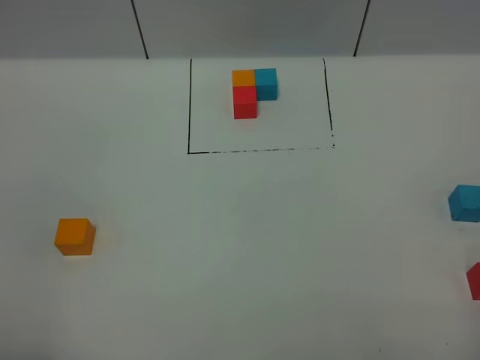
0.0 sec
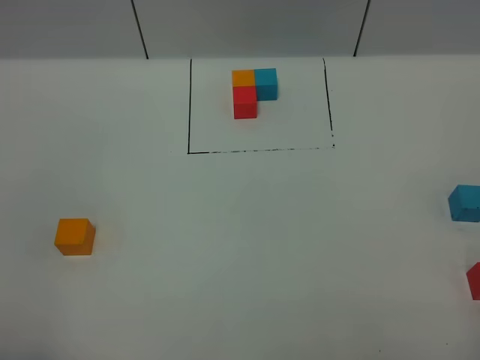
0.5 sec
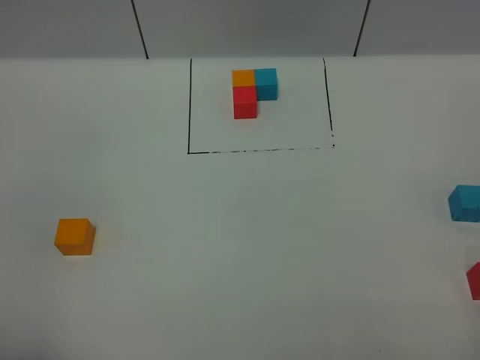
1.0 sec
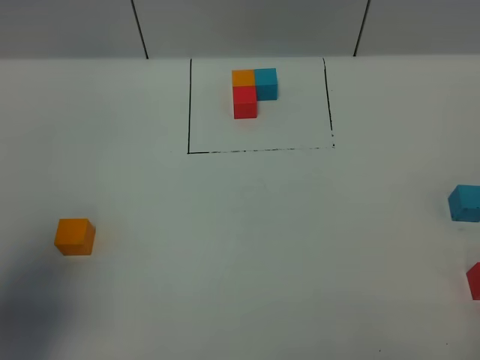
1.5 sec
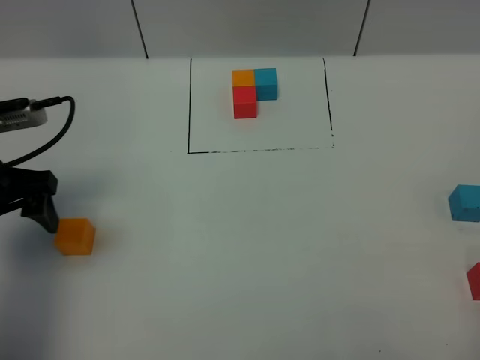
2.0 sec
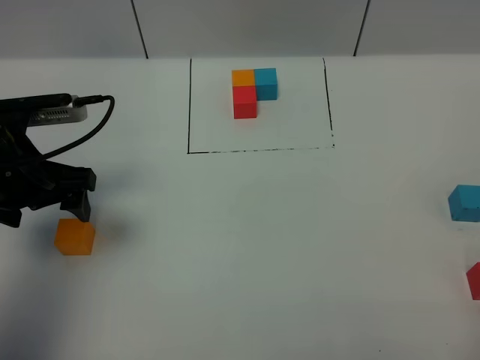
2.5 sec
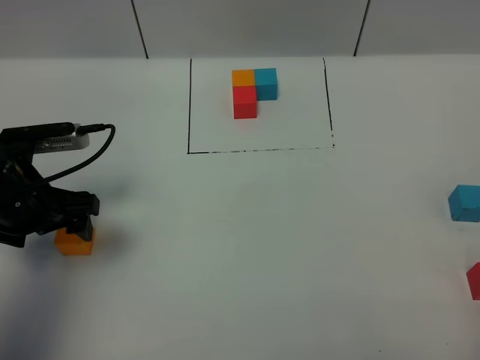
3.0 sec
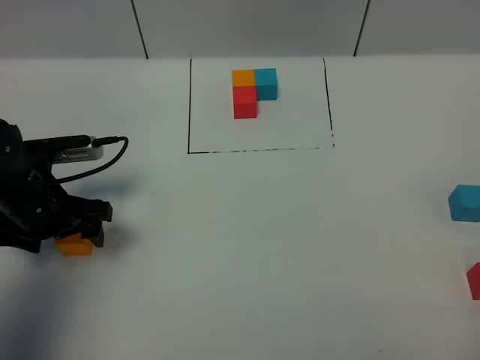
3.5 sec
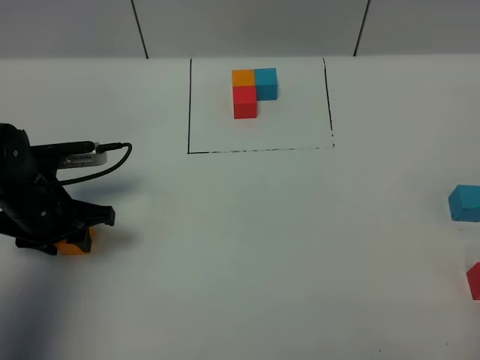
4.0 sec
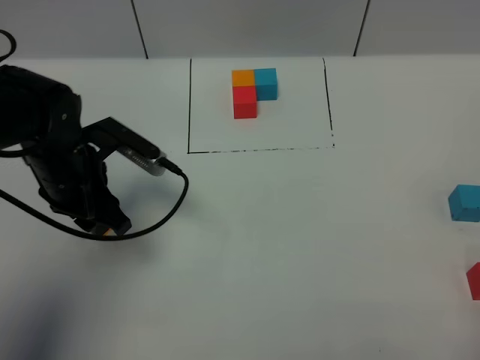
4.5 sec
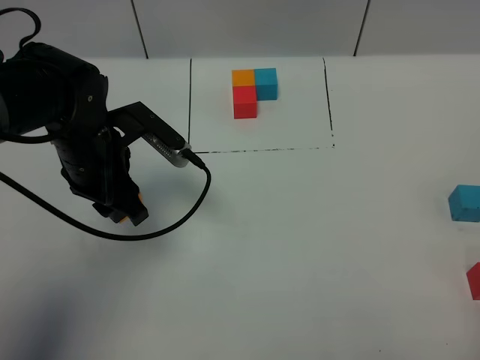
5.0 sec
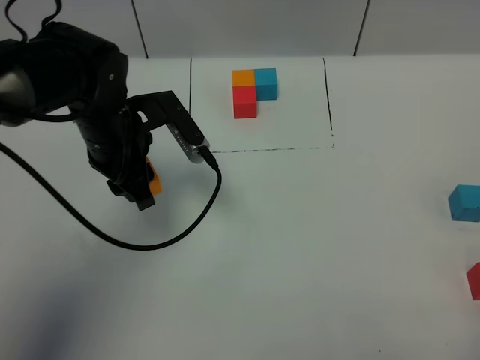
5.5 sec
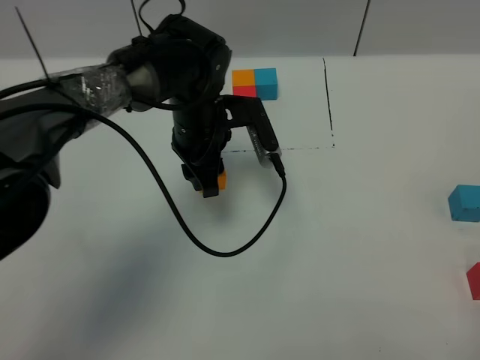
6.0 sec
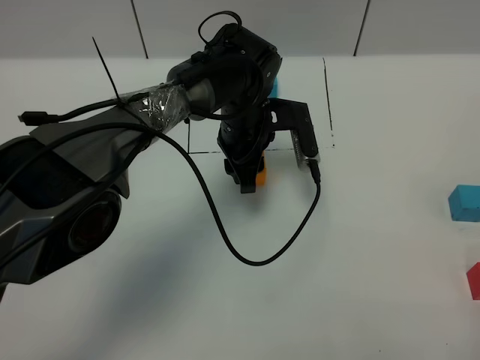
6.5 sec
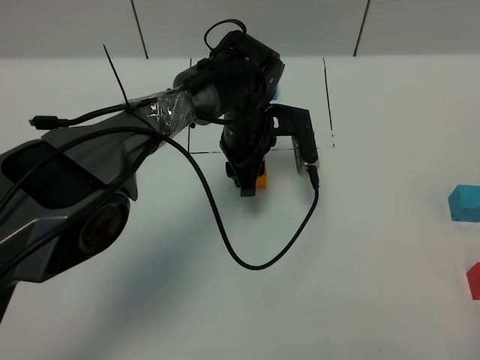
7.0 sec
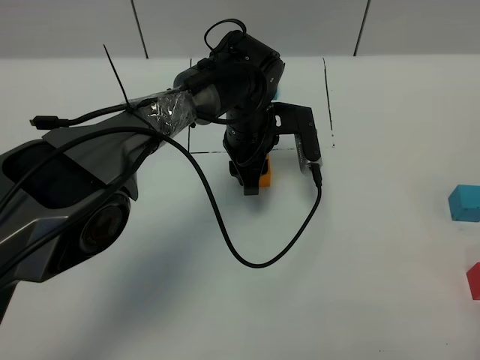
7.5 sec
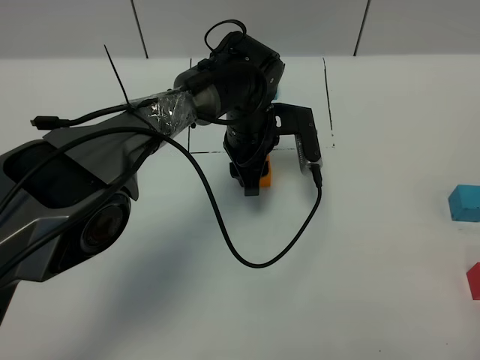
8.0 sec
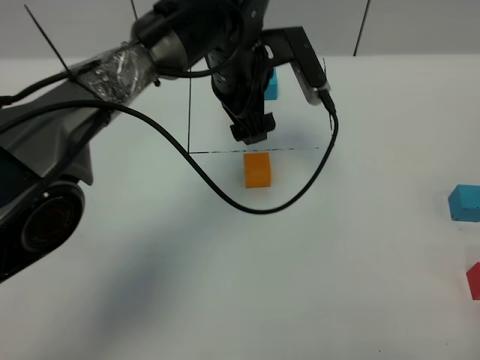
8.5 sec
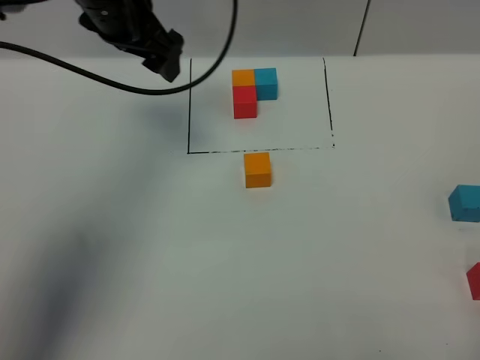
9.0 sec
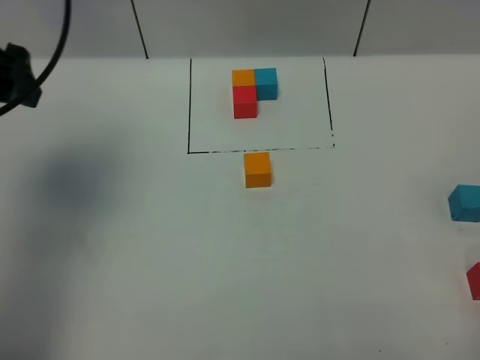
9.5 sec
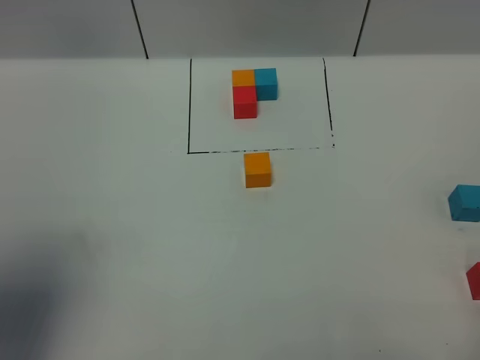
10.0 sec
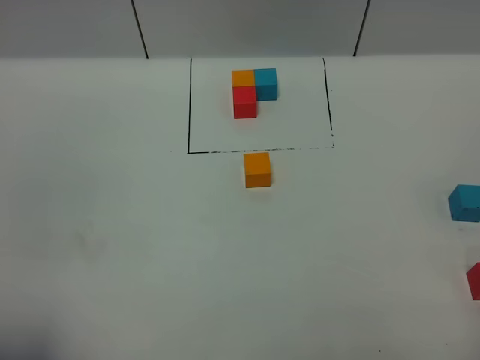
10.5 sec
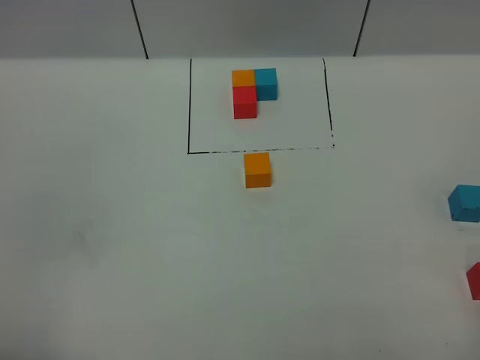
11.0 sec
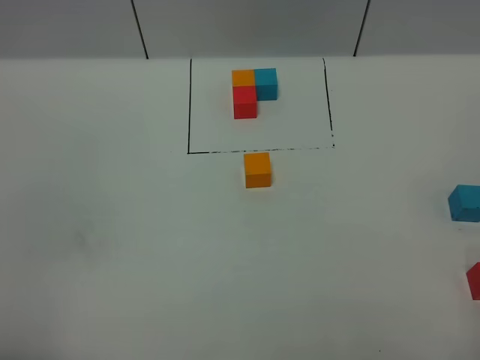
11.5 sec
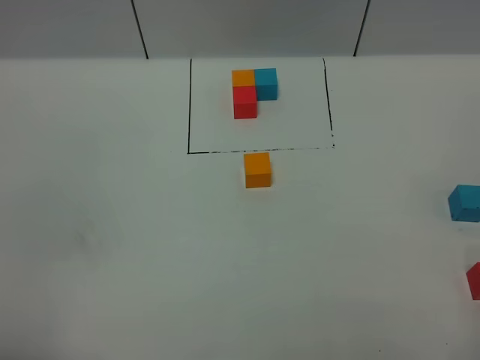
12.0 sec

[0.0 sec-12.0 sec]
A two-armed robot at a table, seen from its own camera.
Task of the whole recording: According to the building block template in front, assemble the scattered blocks together.
Step, 0.0 sec to 7.5 sec: Put the orange build block in the center of the table.
0.0 sec to 2.0 sec: The left gripper shifts some 30 cm forward.
2.0 sec to 4.0 sec: The left gripper goes roughly 10 cm downward, and closes up.
4.0 sec to 6.0 sec: The left gripper is displaced to the right and forward by roughly 25 cm.
6.0 sec to 8.0 sec: The left gripper heads to the right, covering some 5 cm.
8.0 sec to 10.0 sec: The left gripper is displaced to the left, backward and upward by approximately 50 cm, and opens its fingers.
10.0 sec to 12.0 sec: The left gripper goes about 15 cm backward and downward.

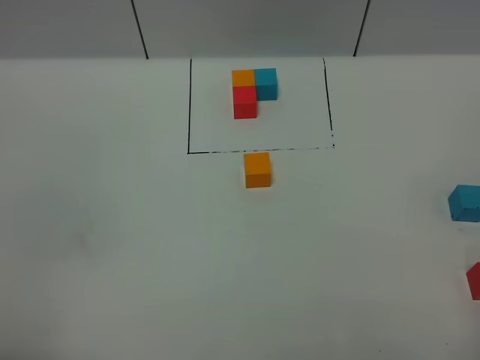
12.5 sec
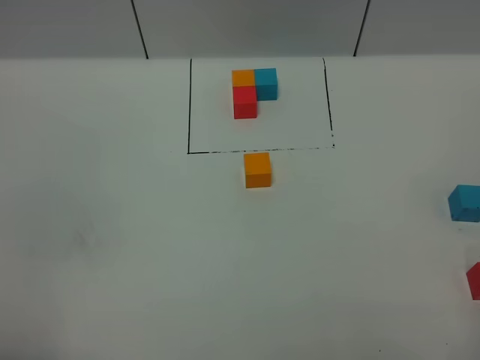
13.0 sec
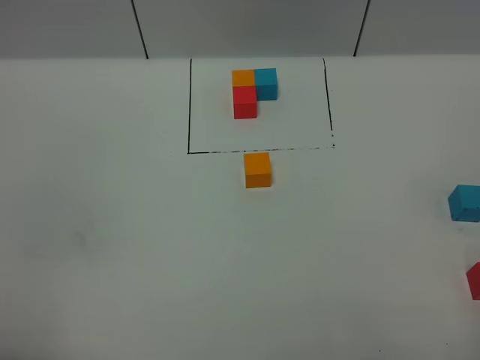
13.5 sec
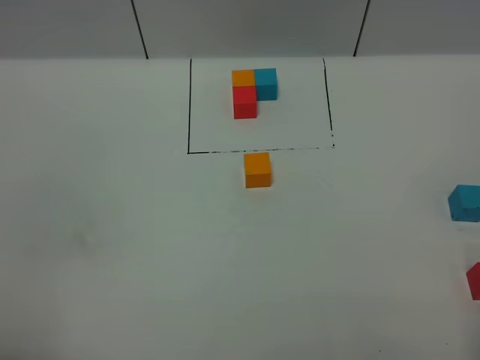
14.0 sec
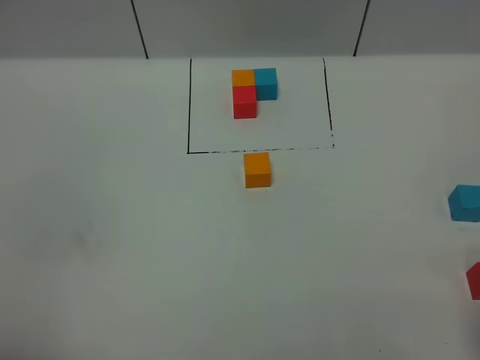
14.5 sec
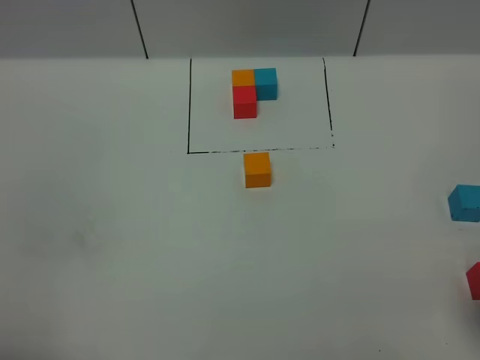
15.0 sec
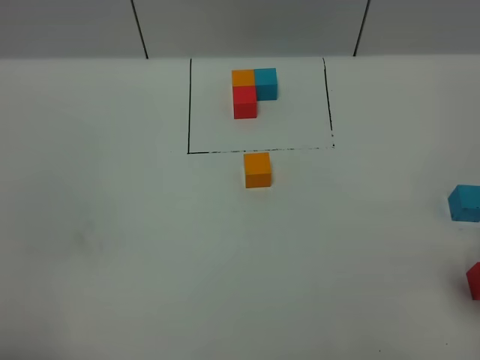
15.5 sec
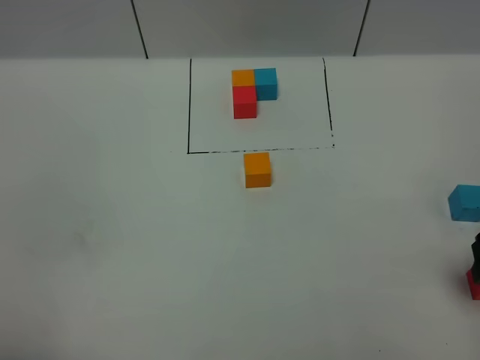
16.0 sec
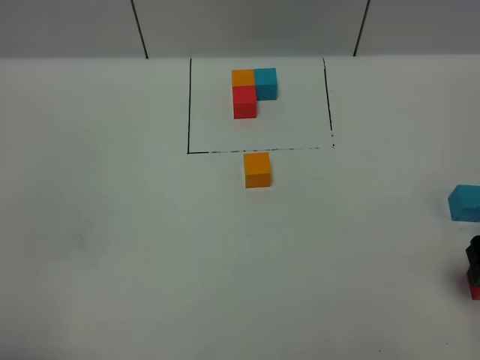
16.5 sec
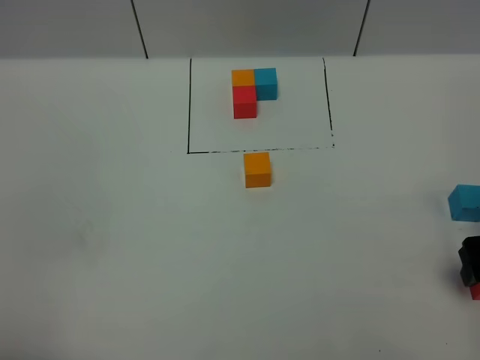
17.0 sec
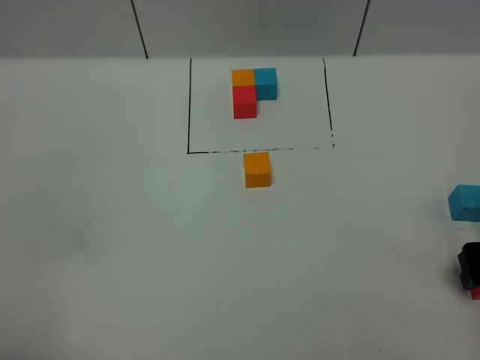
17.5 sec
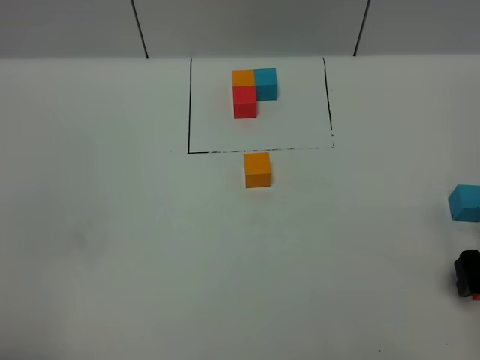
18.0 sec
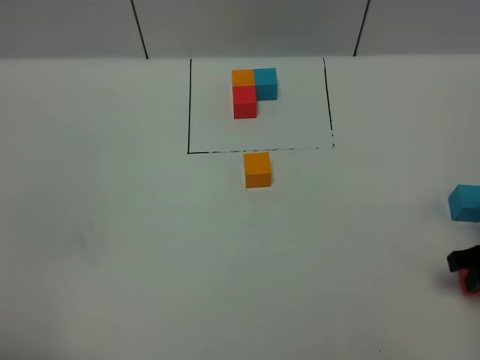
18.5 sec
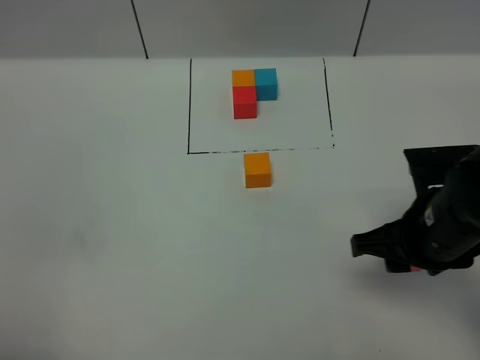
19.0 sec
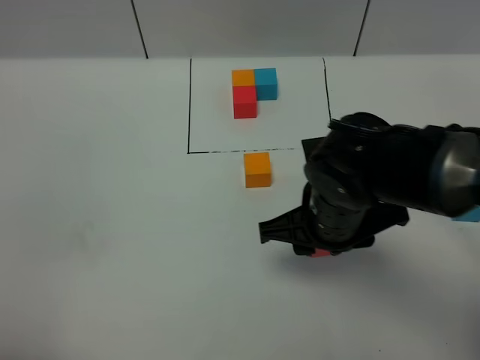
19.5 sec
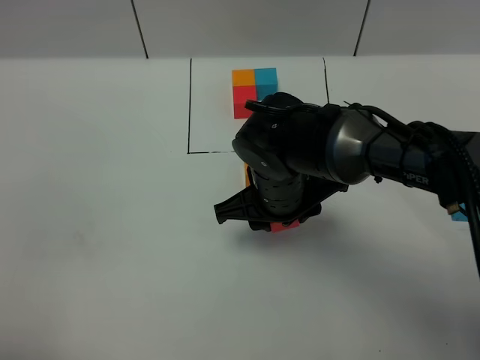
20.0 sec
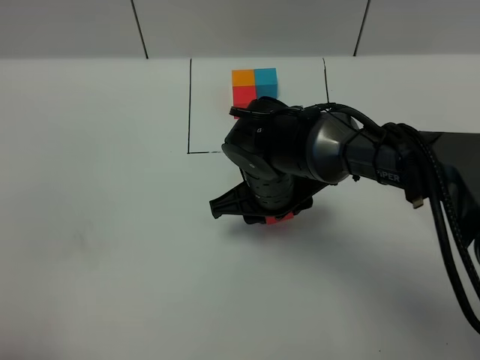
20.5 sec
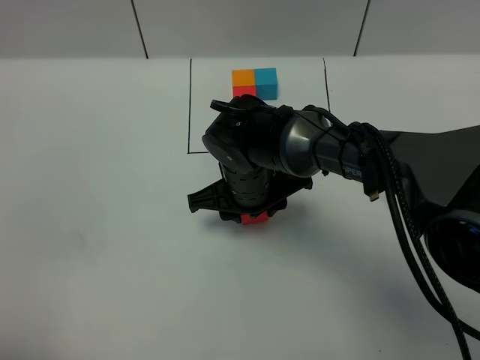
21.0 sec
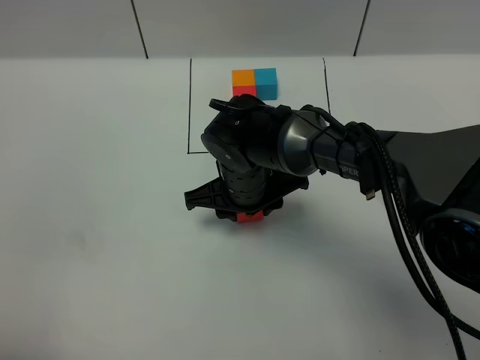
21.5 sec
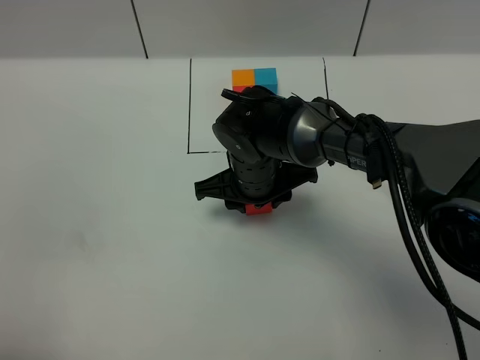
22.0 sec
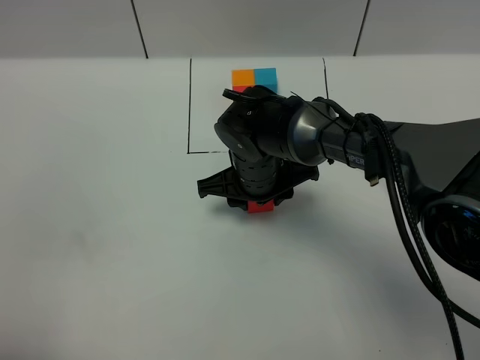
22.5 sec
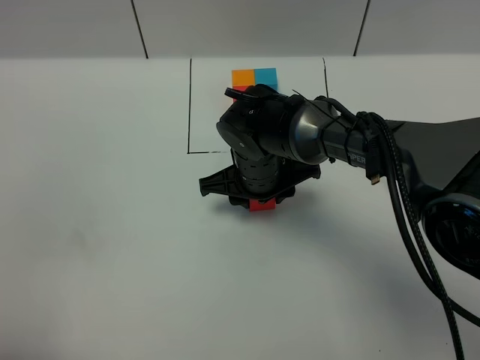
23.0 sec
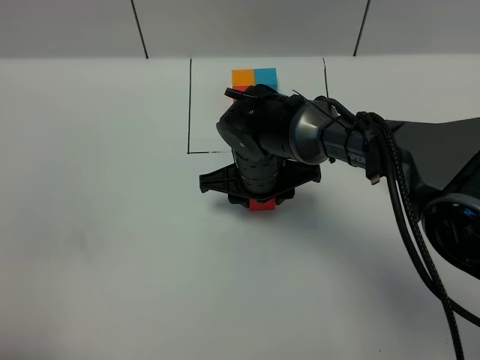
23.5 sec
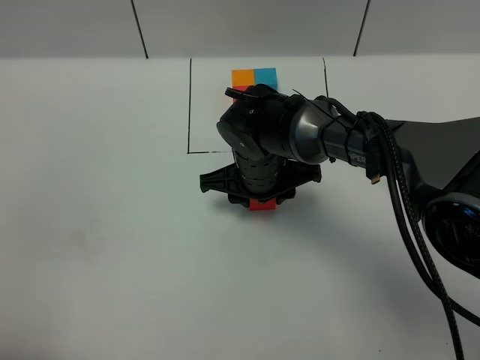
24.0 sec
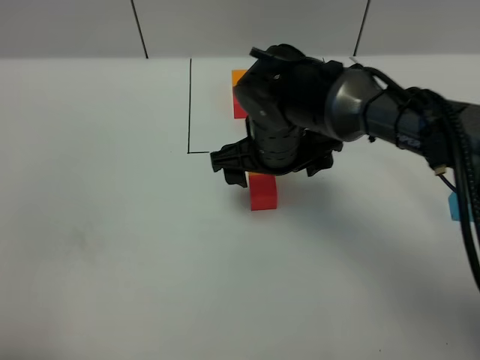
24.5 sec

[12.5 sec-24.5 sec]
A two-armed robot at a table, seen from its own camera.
Task of the whole recording: According to the building block template in front, assemble the scattered blocks together.
Step, 12.5 sec to 24.0 sec: Put the red build block on the behind of the orange build block.
14.5 sec to 16.5 sec: The right gripper shifts some 20 cm forward and downward.
18.5 sec to 20.5 sec: The right gripper shifts approximately 30 cm to the left.
20.5 sec to 22.5 sec: The grippers stay close to where they were, moving slightly.
22.5 sec to 24.5 sec: The right gripper moves upward, approximately 5 cm, and opens up.

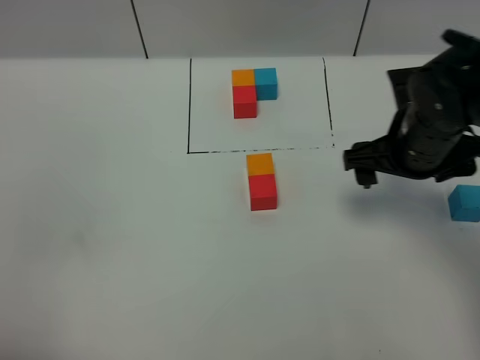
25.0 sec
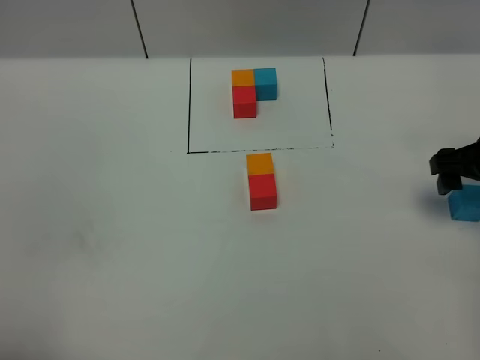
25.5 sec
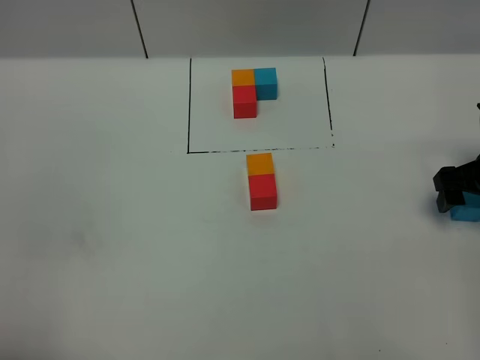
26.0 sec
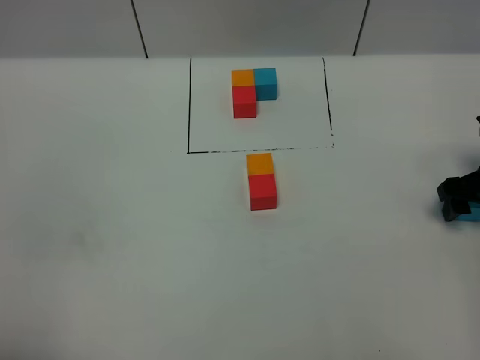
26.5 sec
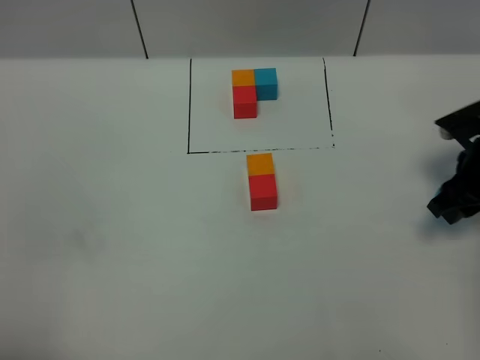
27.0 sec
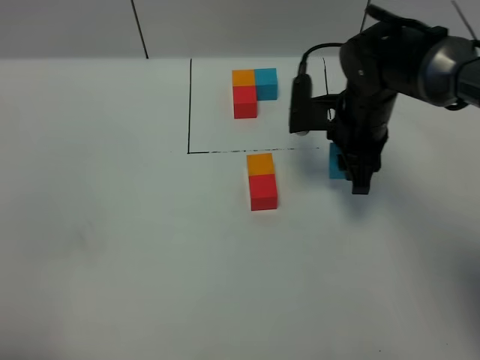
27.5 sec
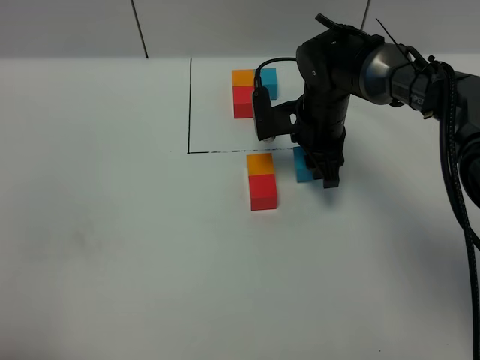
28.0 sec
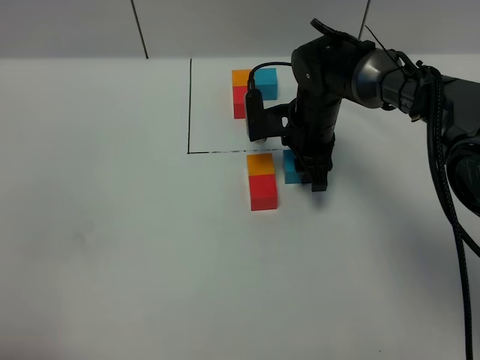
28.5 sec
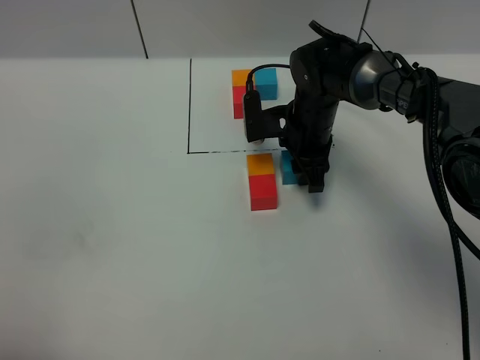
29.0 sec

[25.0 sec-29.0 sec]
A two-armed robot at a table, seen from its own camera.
Task of the whole recording: According to the building block template in front, assemble the scattered blocks together.
25.0 sec to 27.0 sec: The right gripper is displaced to the right and downward by some 10 cm, and closes up.
27.0 sec to 29.0 sec: The right gripper travels to the left and forward by about 25 cm.
